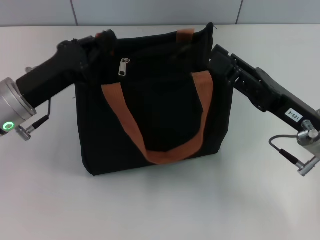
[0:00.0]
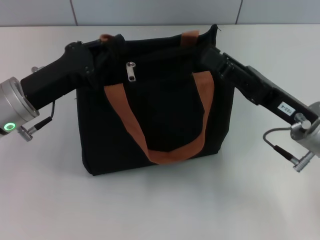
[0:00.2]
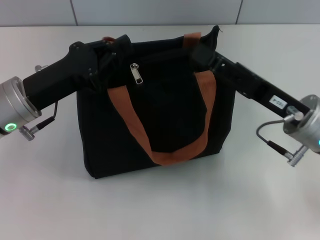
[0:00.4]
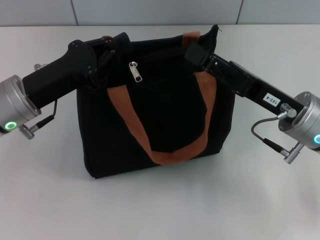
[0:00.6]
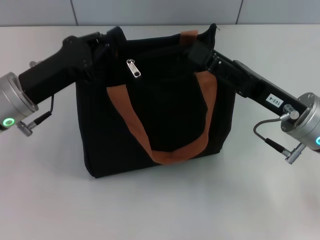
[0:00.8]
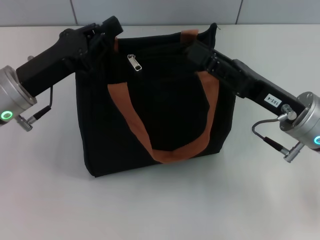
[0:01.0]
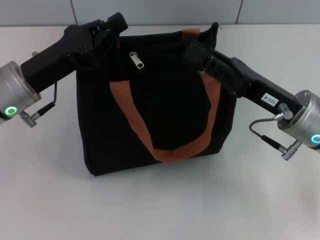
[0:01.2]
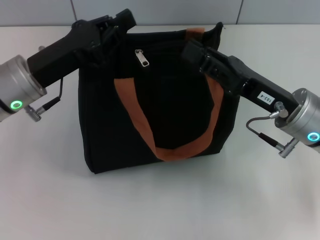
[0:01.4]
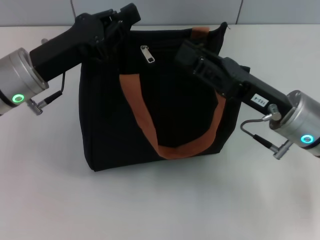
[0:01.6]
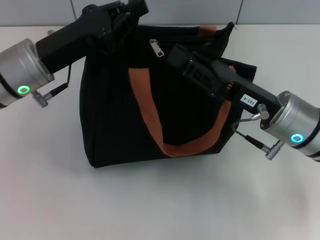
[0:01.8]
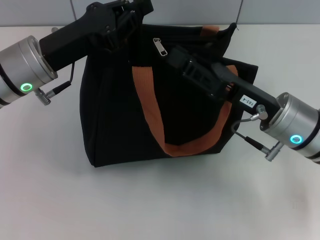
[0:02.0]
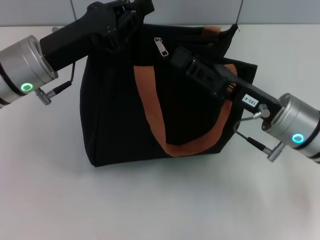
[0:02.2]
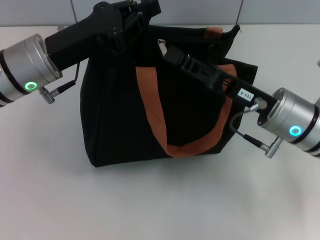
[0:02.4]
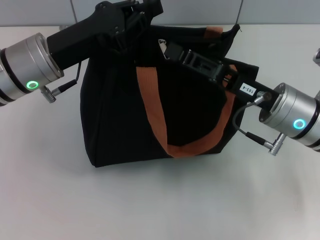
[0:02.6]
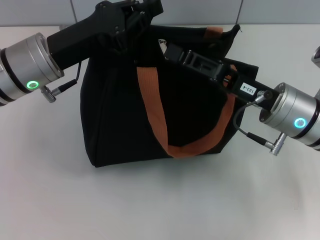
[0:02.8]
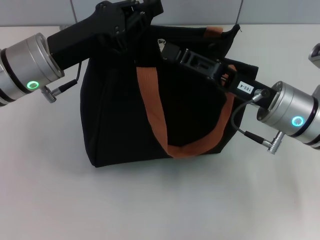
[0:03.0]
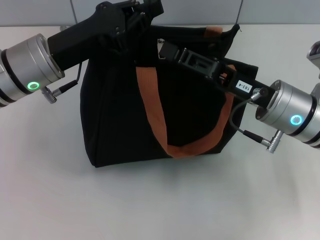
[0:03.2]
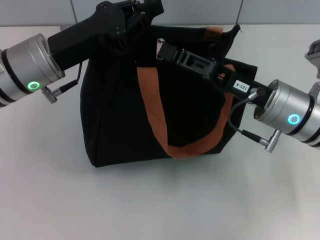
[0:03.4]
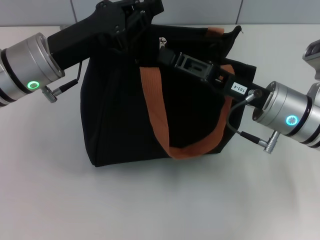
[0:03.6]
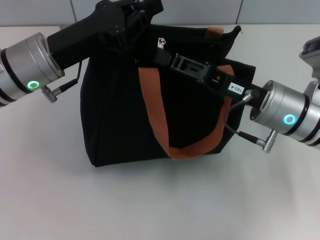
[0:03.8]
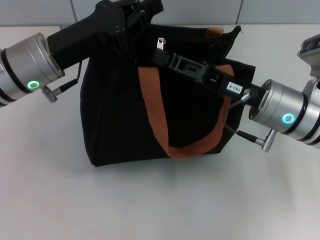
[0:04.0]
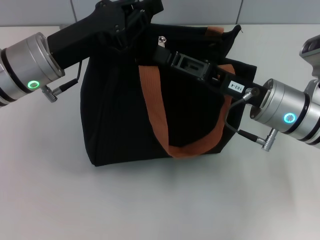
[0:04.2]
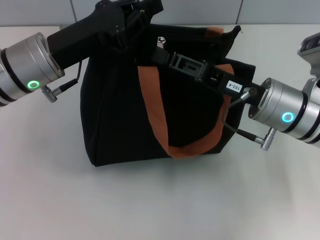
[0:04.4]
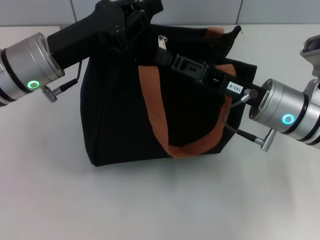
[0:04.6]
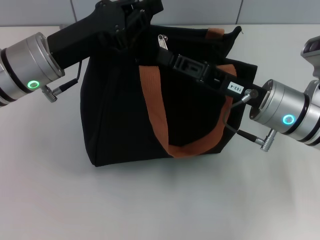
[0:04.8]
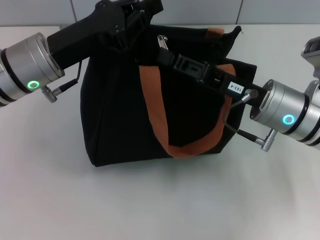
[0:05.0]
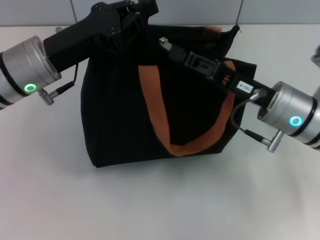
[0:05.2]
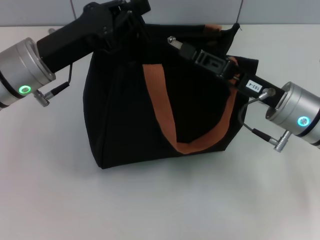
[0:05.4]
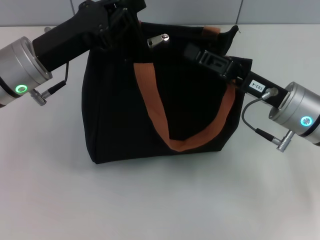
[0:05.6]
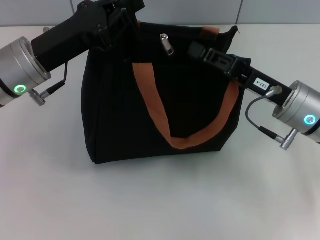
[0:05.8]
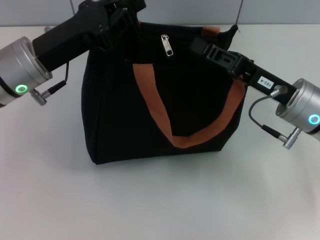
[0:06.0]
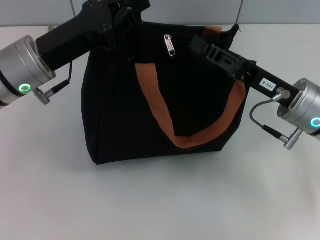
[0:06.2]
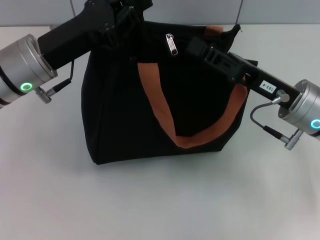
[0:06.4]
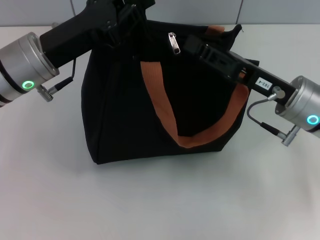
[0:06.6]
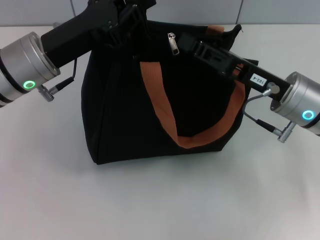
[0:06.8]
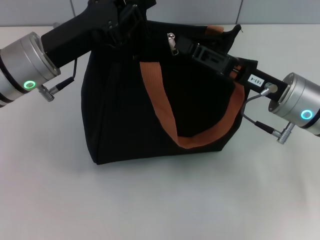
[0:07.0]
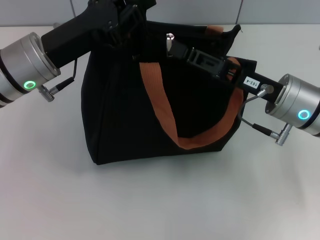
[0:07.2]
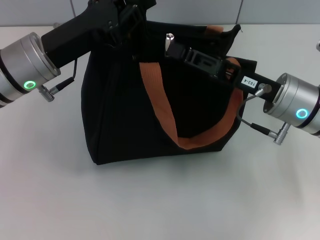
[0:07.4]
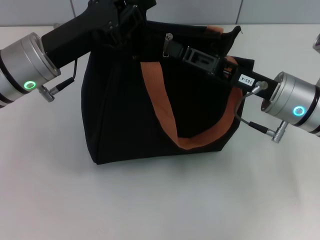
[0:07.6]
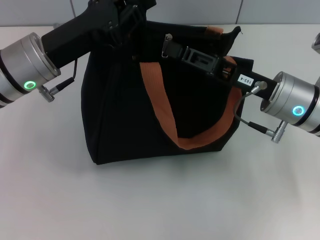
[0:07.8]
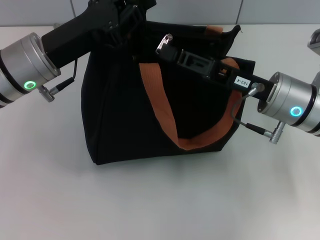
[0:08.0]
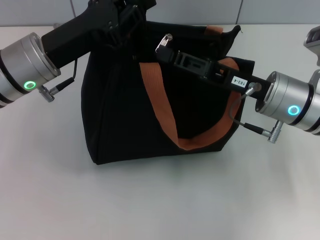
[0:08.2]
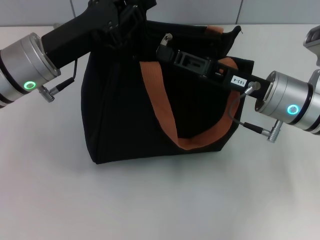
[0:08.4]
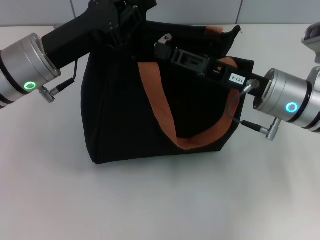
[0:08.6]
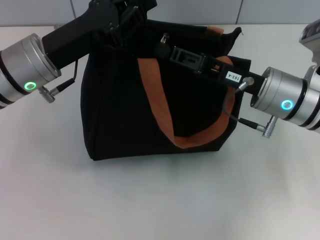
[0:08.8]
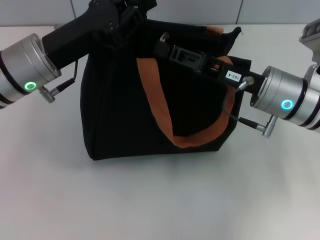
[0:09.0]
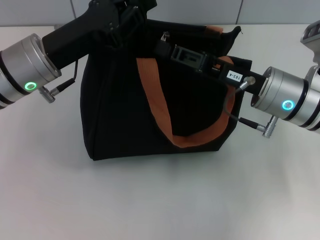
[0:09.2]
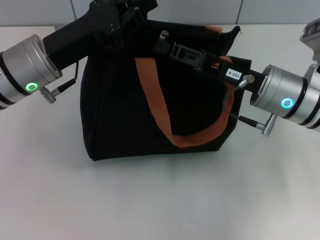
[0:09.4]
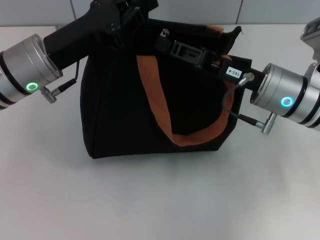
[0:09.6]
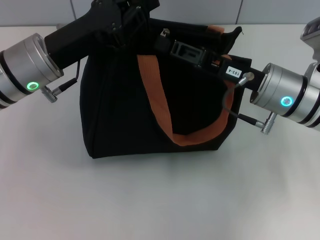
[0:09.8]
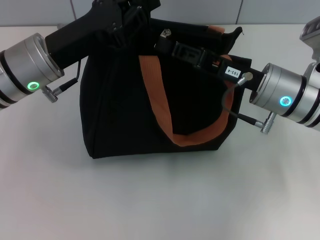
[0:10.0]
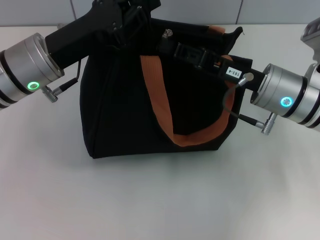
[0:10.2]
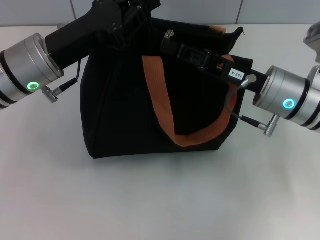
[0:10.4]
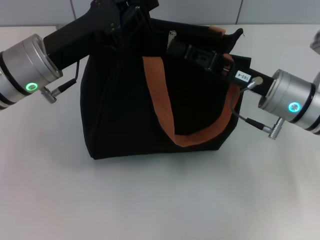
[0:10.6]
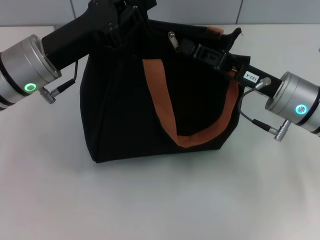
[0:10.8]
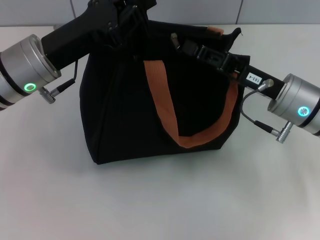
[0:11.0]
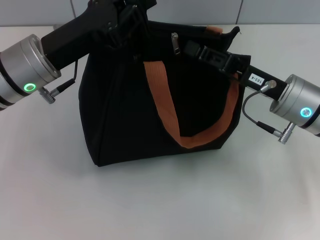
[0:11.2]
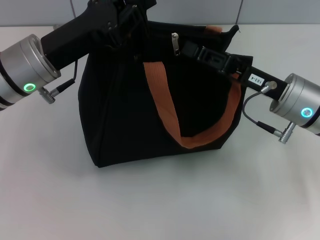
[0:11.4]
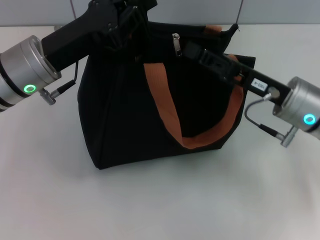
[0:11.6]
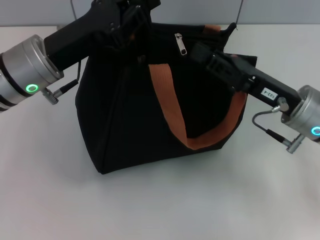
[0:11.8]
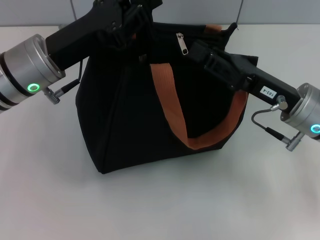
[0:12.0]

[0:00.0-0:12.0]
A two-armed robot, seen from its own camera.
0:03.0 to 0:04.4: Both grippers stay about where they are.
0:04.4 to 0:09.0: The grippers move only a little.
0:09.0 to 0:10.4: Both grippers stay put.
0:10.4 to 0:12.0: The grippers stay close to where they were, moving slightly.

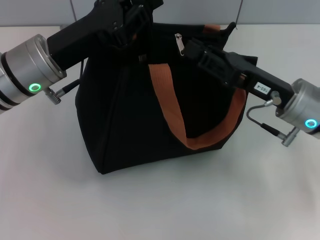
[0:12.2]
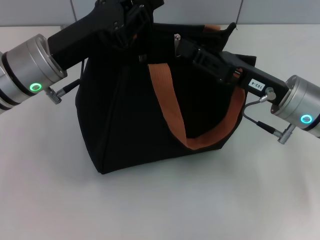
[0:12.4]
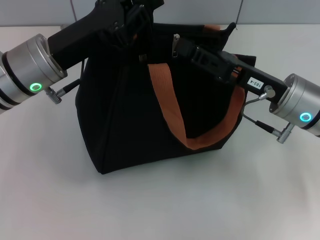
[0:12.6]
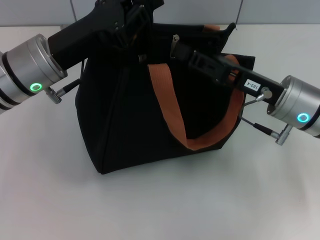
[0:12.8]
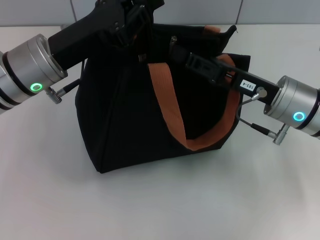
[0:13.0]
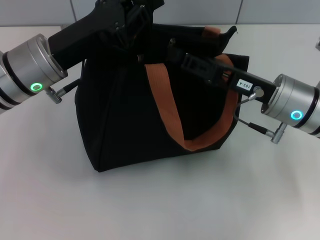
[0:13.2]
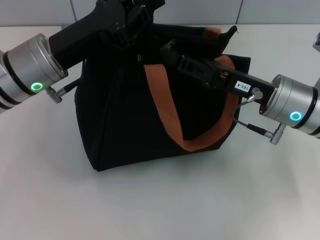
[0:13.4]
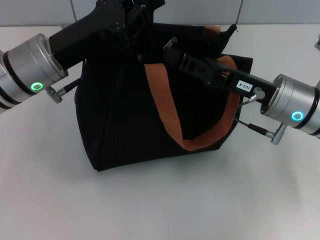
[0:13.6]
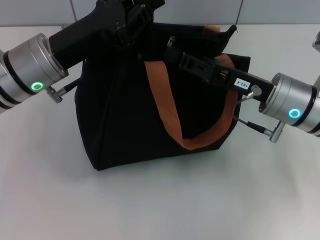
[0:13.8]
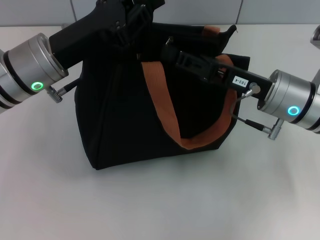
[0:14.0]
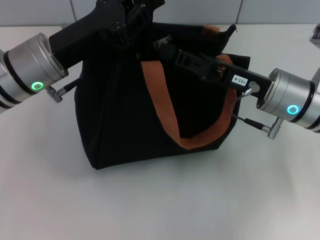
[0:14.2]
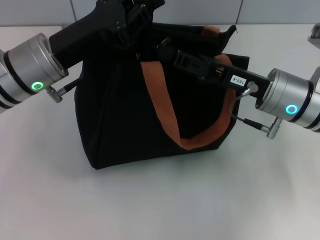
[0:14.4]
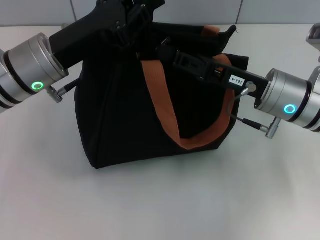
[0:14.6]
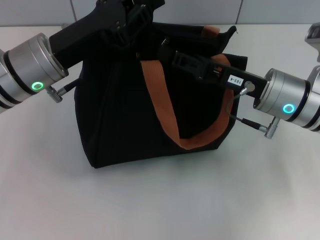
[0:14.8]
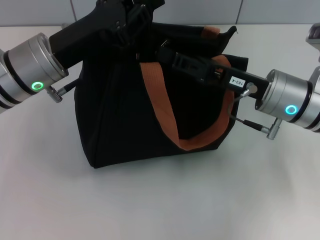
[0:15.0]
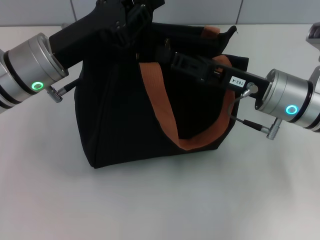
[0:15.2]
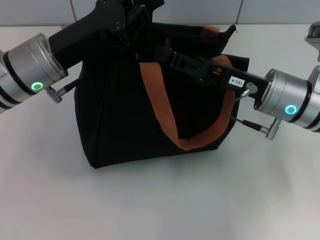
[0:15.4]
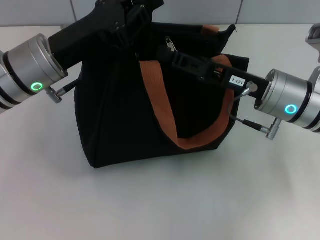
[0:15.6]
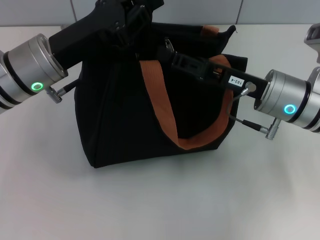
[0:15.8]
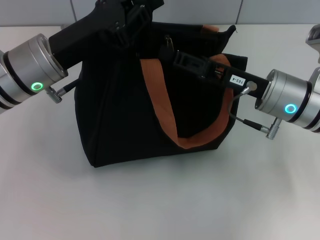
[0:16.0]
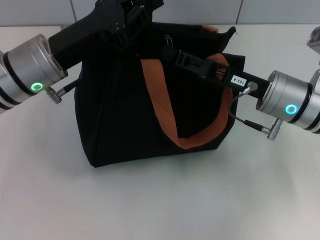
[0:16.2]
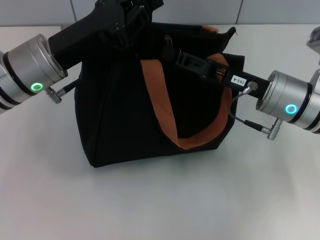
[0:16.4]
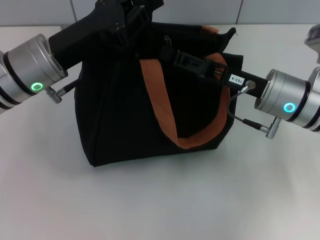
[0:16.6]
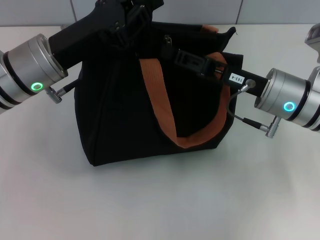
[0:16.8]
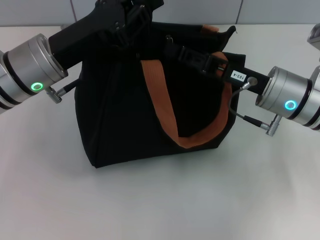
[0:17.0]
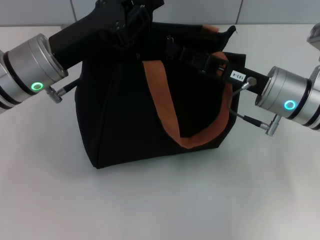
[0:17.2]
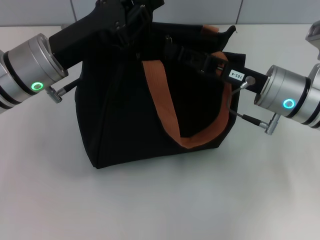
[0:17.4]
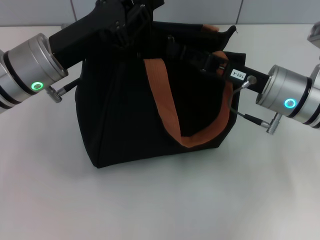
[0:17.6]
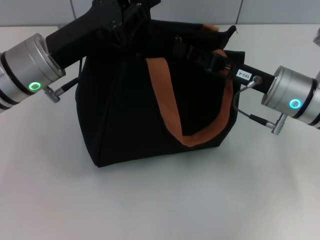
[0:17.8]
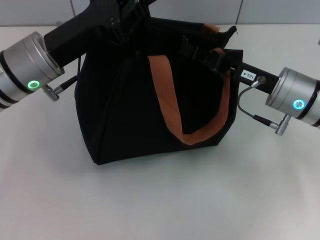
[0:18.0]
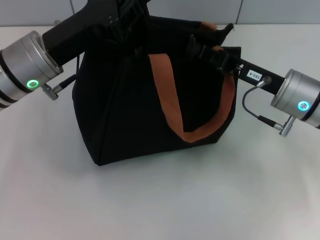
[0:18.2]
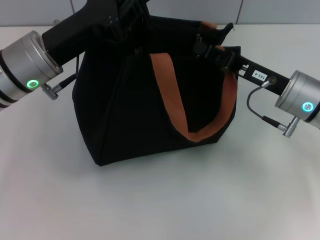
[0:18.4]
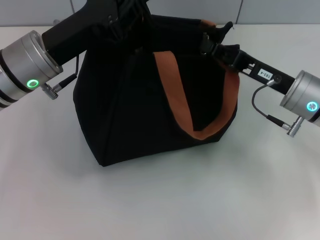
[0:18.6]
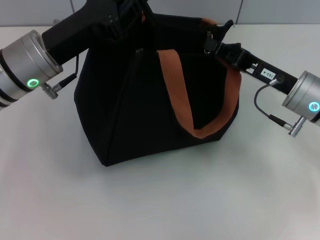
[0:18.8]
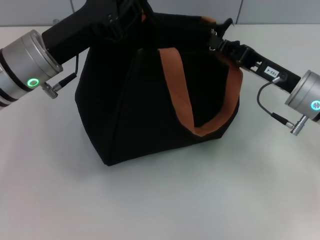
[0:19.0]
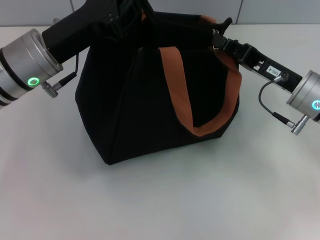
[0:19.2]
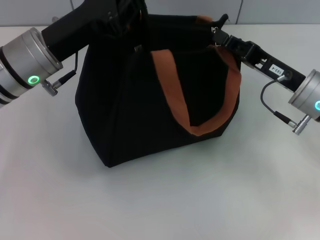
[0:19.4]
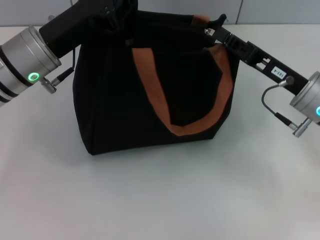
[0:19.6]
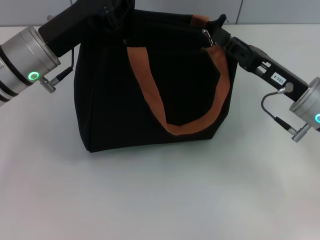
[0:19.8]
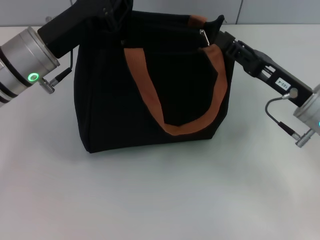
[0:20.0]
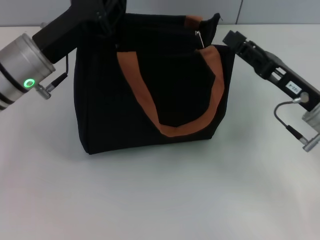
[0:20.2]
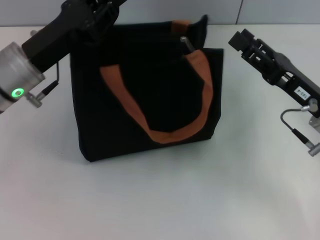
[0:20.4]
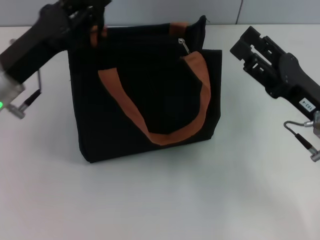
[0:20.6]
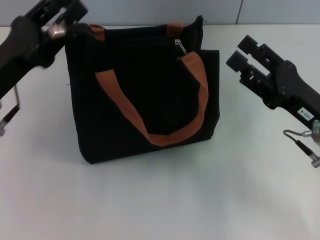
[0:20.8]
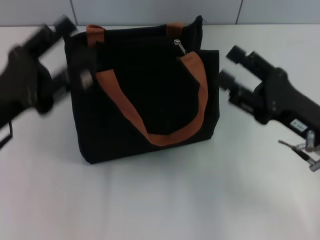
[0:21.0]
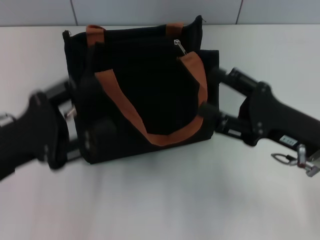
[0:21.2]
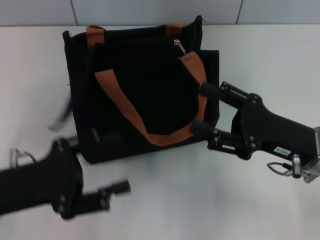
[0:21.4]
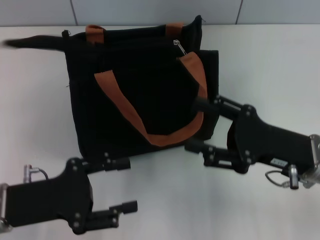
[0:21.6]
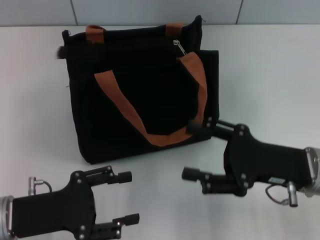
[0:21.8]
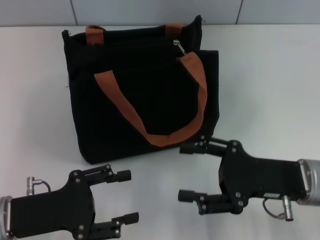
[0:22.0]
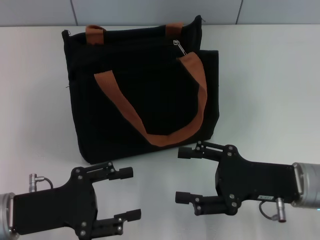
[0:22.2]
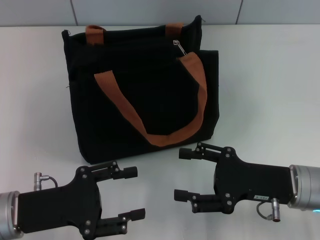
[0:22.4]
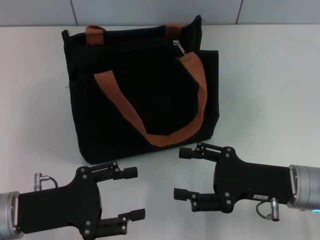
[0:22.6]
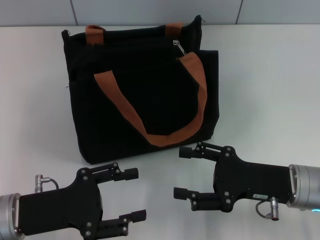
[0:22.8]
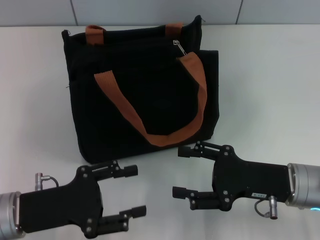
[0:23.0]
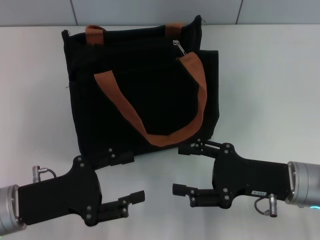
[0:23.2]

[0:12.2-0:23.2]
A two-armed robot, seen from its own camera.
Step, 0:12.2 to 0:19.8: Pull up the zipper with your right hand.
Step, 0:20.0 to 0:20.8: Grab the zipper with your left hand.
0:12.2 to 0:13.8: The grippers stay close to where they were, moving slightly.
0:13.8 to 0:15.4: The two grippers keep their place.
0:15.4 to 0:18.4: There are only small adjustments of the grippers.
0:20.0 to 0:21.6: The left gripper moves backward and downward, roughly 15 cm, and opens, while the right gripper heads backward, covering approximately 5 cm, and opens.
0:21.6 to 0:23.2: The grippers move only a little.
